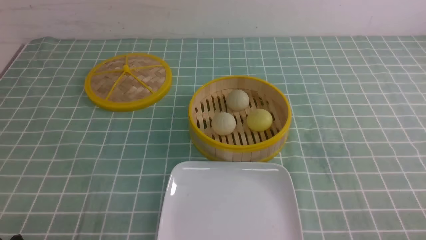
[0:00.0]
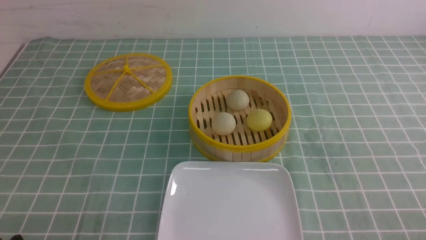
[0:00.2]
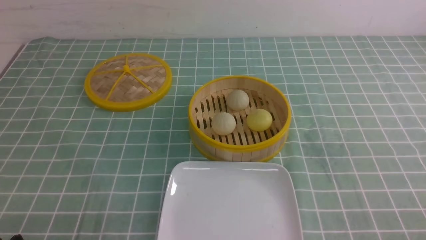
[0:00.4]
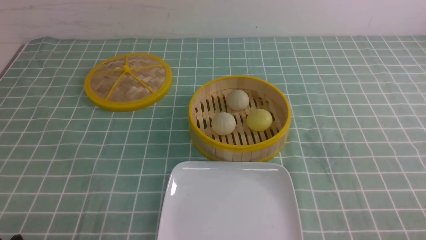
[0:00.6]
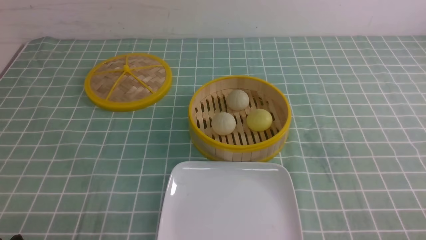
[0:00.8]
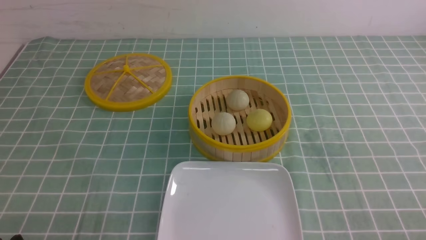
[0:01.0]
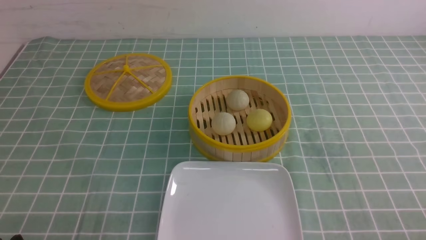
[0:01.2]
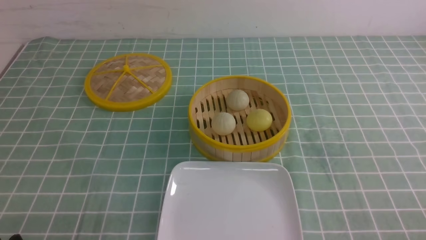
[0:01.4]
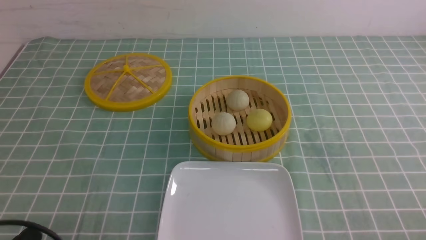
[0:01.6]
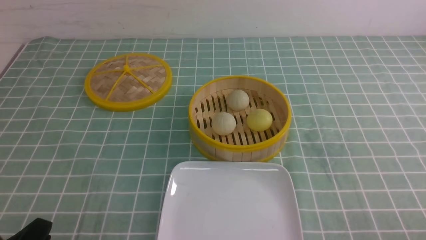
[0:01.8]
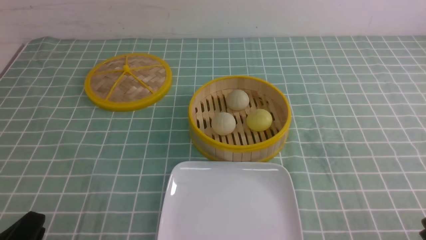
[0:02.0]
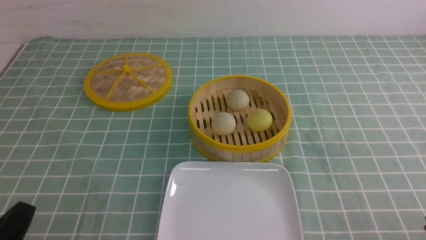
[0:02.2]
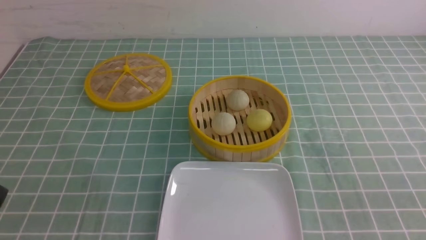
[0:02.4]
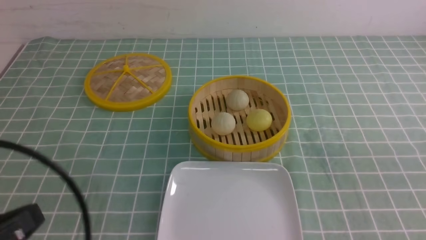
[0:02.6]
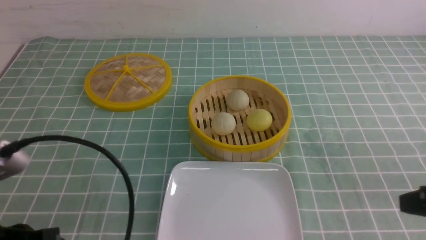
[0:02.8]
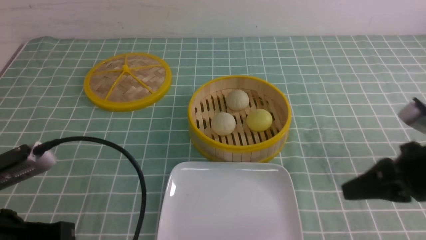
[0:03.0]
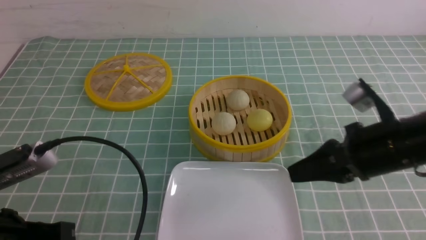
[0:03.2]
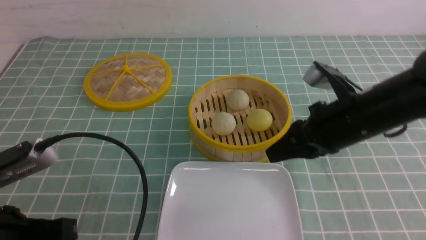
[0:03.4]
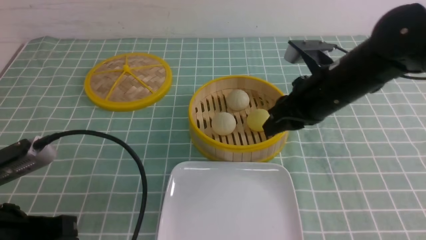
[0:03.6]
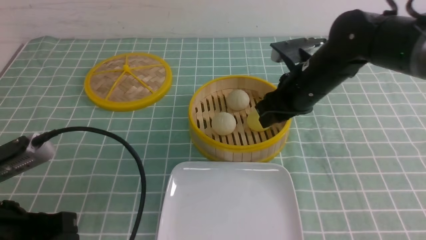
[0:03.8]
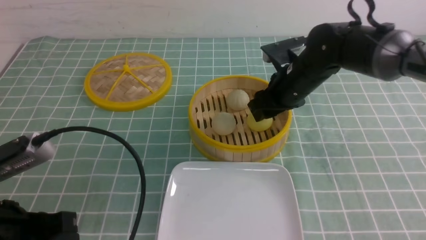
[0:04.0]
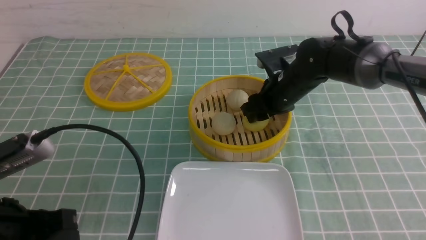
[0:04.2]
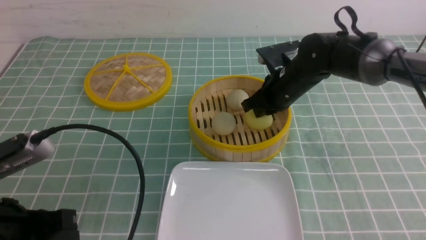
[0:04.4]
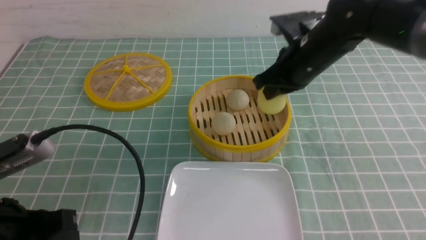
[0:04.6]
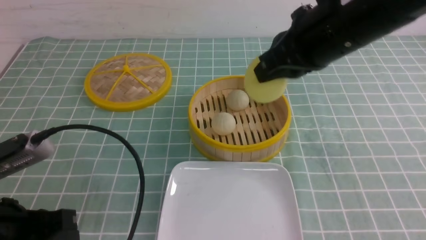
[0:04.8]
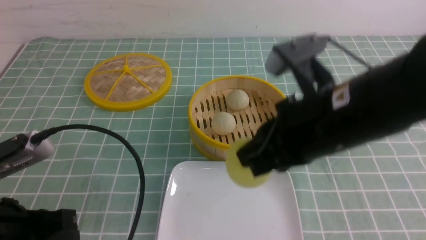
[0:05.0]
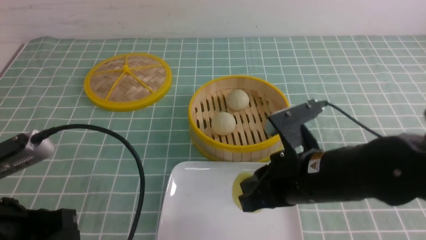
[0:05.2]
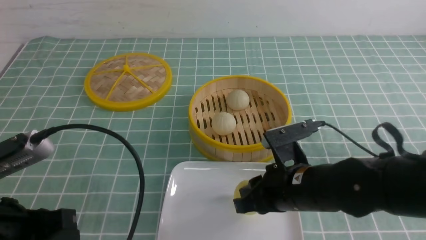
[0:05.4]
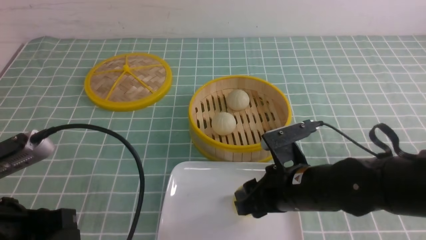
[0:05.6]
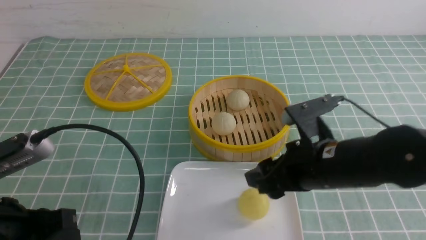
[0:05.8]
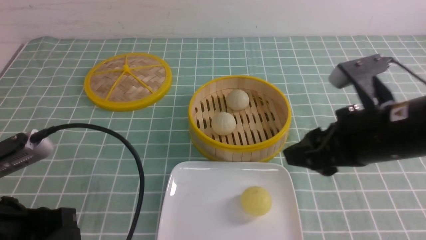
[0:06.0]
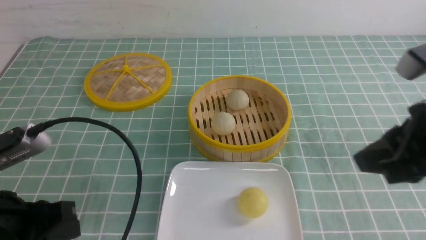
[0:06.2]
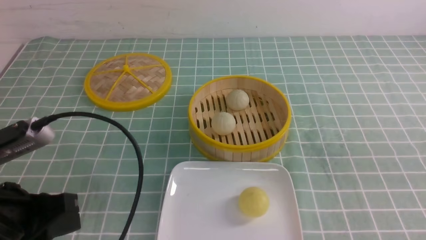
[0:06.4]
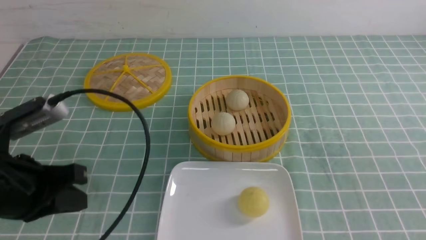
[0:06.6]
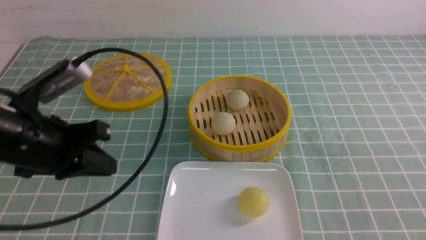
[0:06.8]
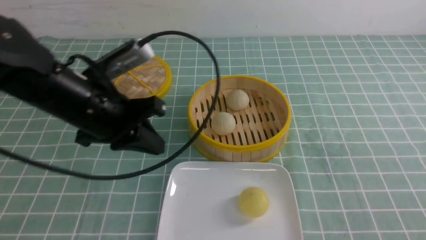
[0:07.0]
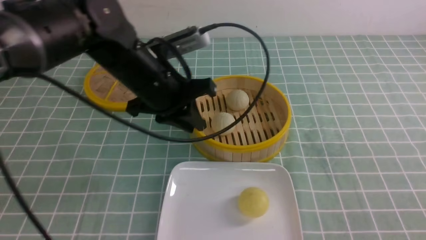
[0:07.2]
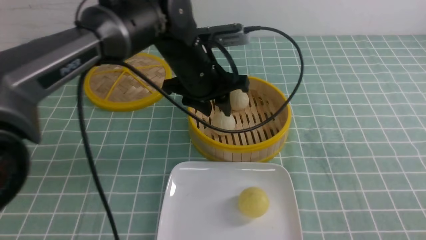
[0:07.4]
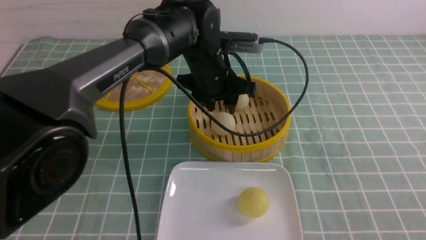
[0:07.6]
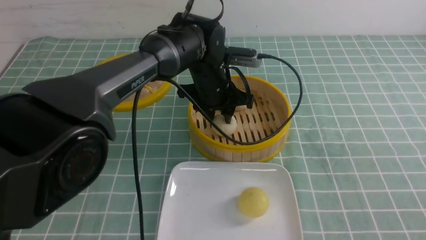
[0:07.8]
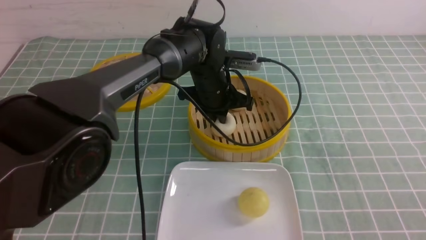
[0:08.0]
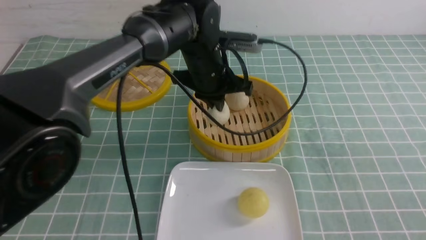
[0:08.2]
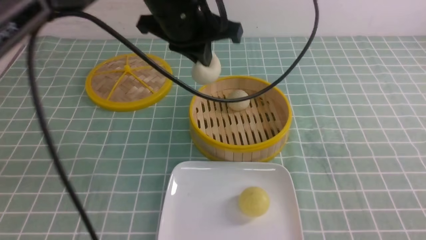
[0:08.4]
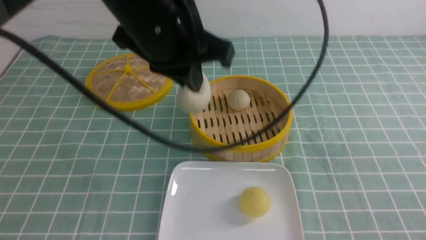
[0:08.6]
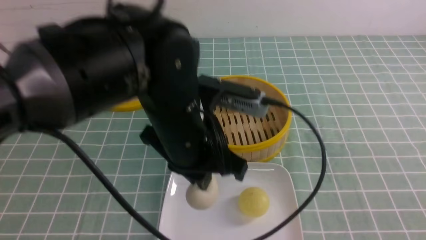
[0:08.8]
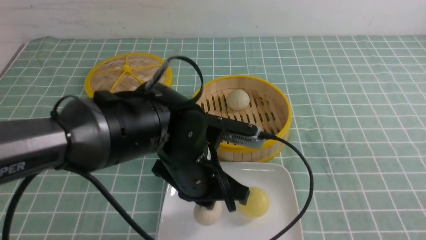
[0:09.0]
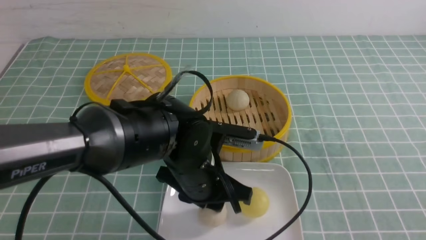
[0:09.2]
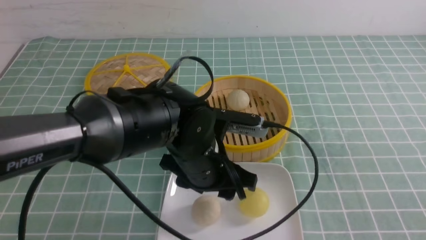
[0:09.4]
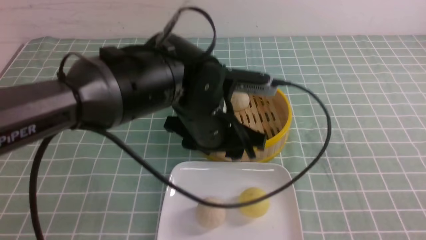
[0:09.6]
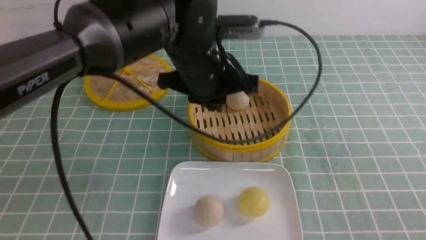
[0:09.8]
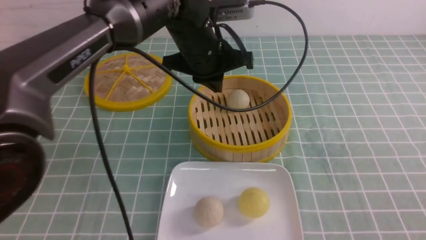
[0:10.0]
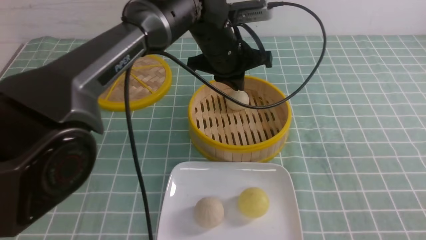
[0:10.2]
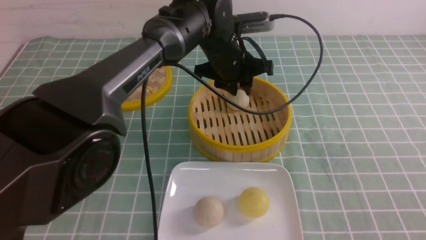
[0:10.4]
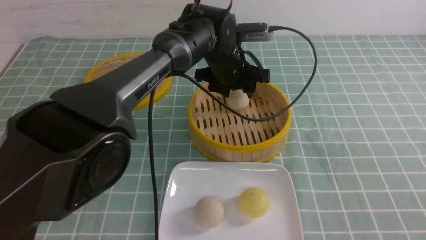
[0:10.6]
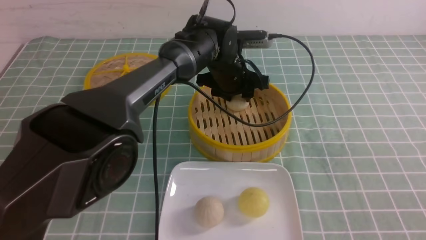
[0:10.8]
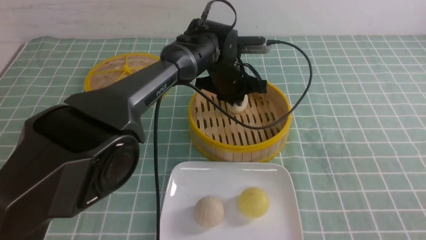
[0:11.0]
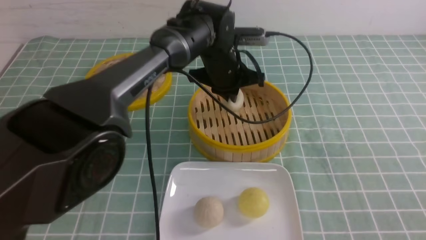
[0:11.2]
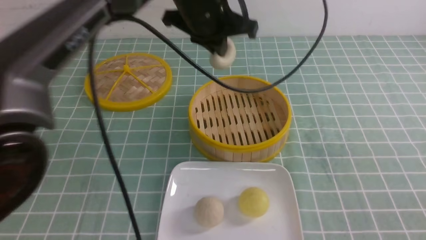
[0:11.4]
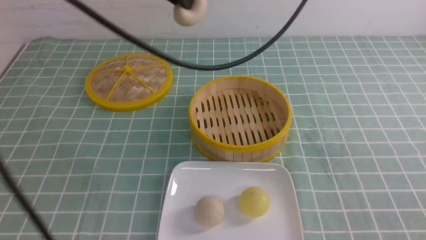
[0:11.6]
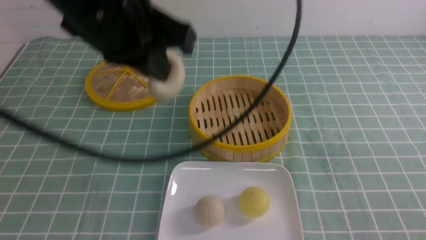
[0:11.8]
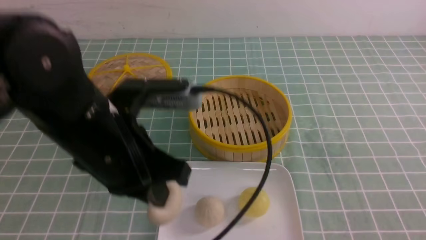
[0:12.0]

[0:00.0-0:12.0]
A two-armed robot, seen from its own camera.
Step, 0:00.0 to 0:04.2: use the right arm to grab the steamed stuffed bun that is closest to it.
Step, 0:04.6 to 0:05.6: use the right arm to put the steamed stuffed bun into the plate.
Step, 0:05.8 to 0:07.8: use the left arm to grab the steamed stuffed bun that is closest to it.
Step, 0:08.2 to 0:09.2: use the left arm to put the steamed stuffed bun into the plate.
Step, 0:09.4 to 0:11.0: use the left arm to grab the steamed stuffed bun that is closest to it.
0:01.6 to 0:03.0: The right gripper is displaced forward, upward and to the left by approximately 20 cm, and closes its fingers. The left gripper goes roughly 10 cm upward and forward, and closes its fingers.
0:03.0 to 0:04.4: The right gripper heads forward and to the left, covering roughly 25 cm, and opens, then closes once more.
0:04.4 to 0:06.0: The right gripper travels backward by some 20 cm, and opens its fingers.
0:06.0 to 0:07.6: The left gripper goes roughly 35 cm forward and to the right, and opens, while the right gripper heads backward and to the right, covering roughly 20 cm, and closes up.
0:07.6 to 0:09.0: The left gripper is displaced backward by some 15 cm, and closes.
0:09.0 to 0:10.4: The left gripper travels forward by roughly 20 cm, and opens up.
0:10.4 to 0:12.0: The left gripper shifts approximately 25 cm backward and to the left, and closes up.

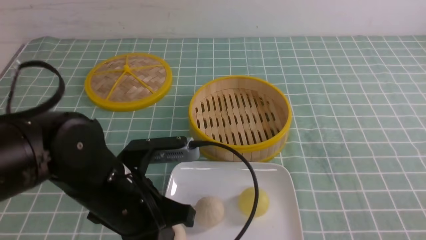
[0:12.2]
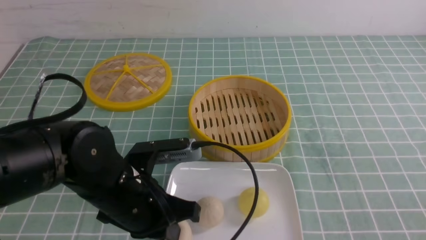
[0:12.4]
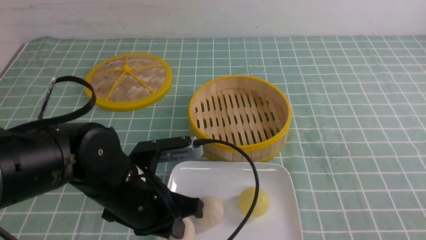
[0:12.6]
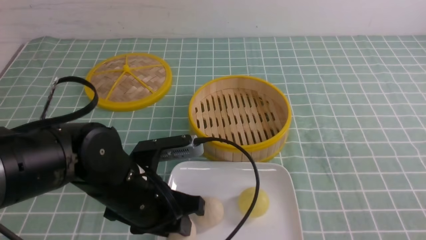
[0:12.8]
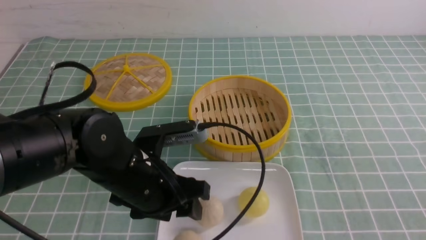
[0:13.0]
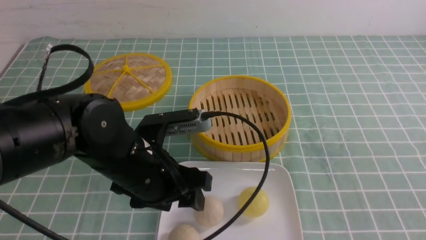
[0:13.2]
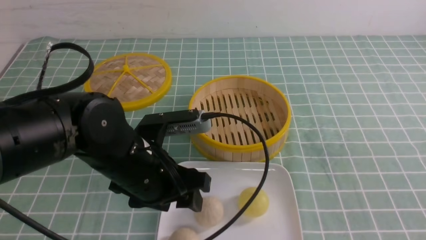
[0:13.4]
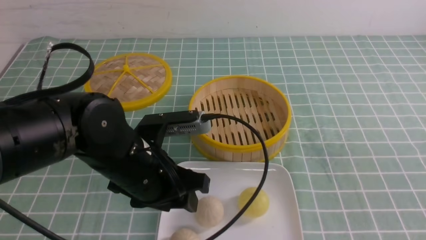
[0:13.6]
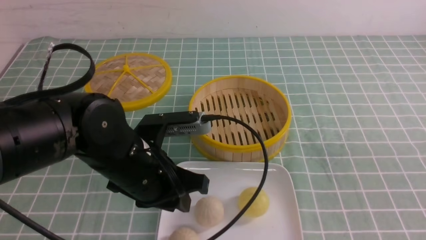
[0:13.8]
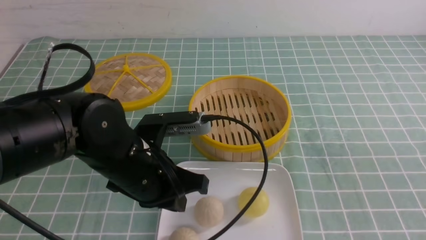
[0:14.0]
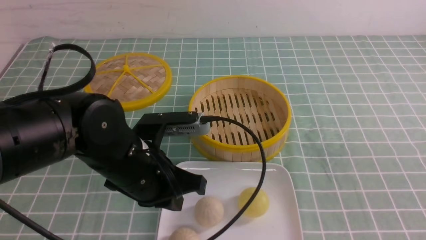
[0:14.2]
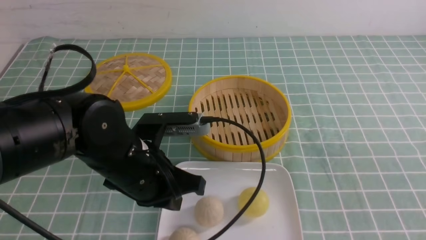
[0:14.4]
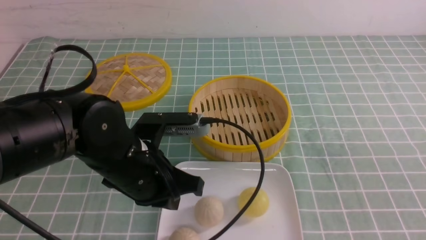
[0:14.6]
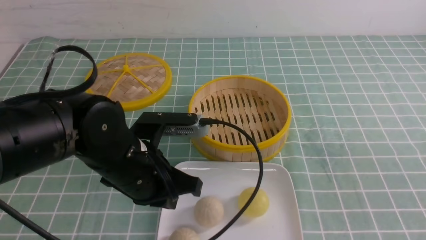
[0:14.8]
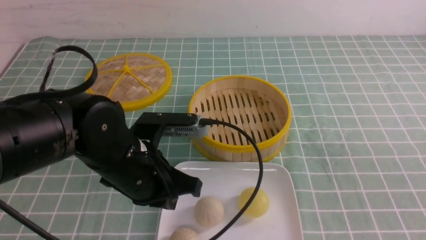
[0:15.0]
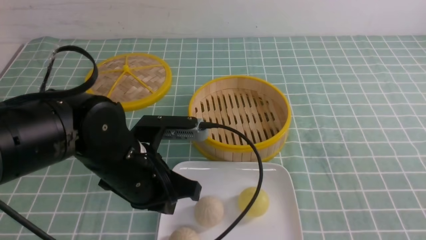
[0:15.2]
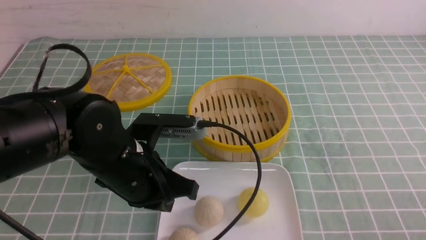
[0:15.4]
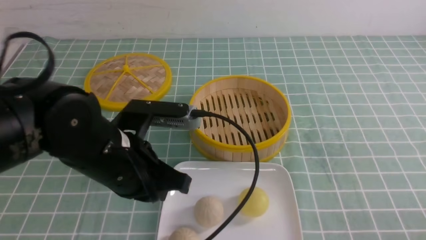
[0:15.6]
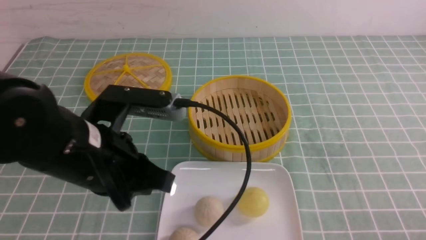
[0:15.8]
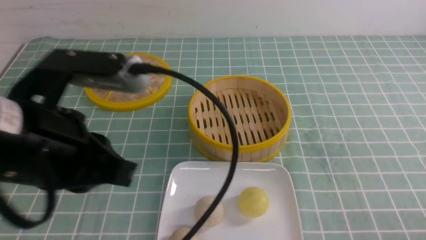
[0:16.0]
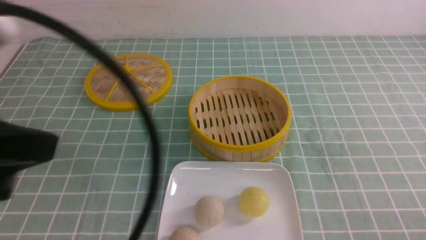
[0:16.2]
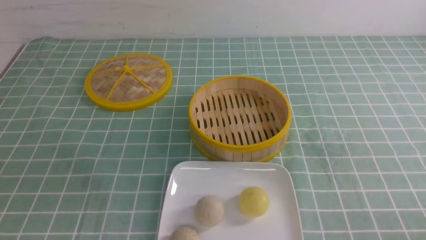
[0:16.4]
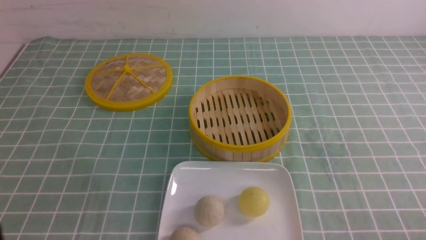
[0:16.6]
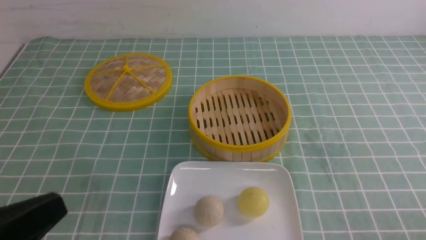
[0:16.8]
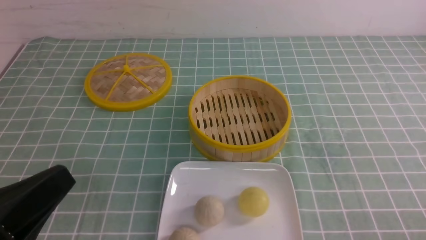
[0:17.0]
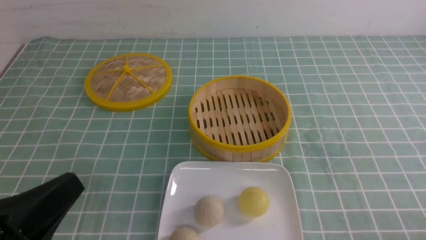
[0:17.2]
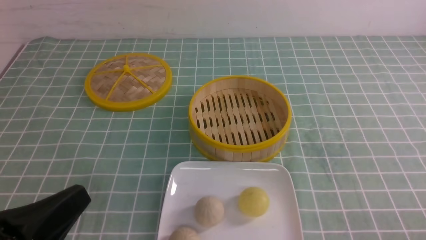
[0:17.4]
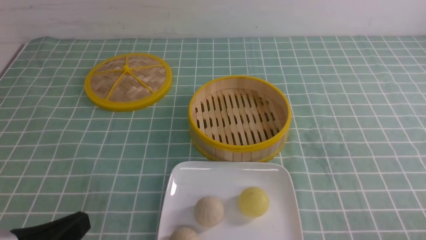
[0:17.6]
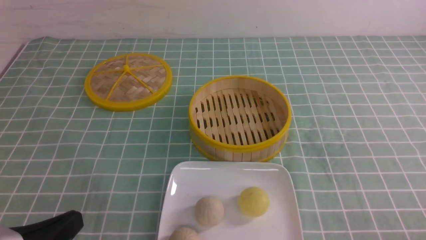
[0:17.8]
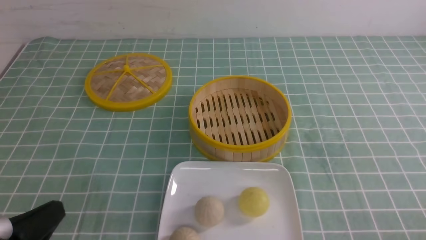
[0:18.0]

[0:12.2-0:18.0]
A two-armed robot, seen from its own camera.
0:12.2 to 0:13.6: The left gripper opens its fingers, while the right gripper moves upward, roughly 5 cm.
0:13.6 to 0:15.0: The left gripper closes.
0:15.0 to 0:16.6: The left gripper heads backward, upward and to the left, covering roughly 30 cm. Meanwhile the right gripper shifts about 10 cm downward.
0:16.6 to 0:18.0: The left gripper shifts about 15 cm downward.
